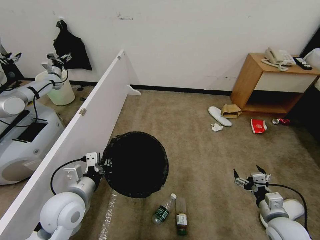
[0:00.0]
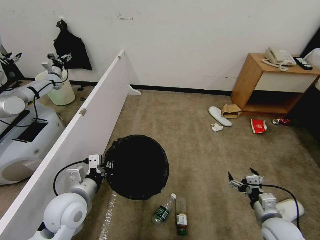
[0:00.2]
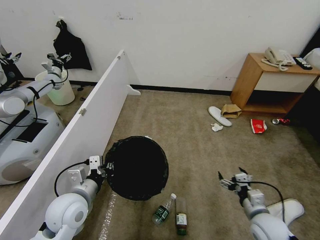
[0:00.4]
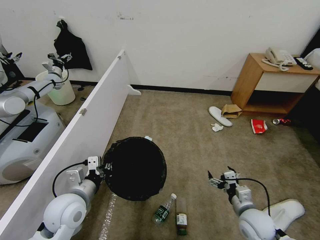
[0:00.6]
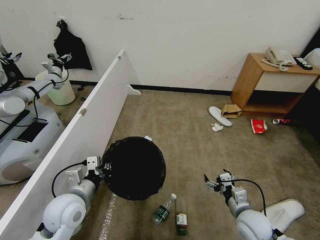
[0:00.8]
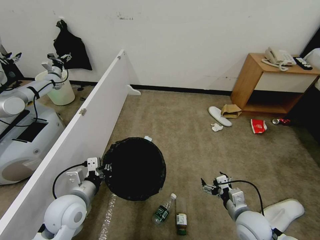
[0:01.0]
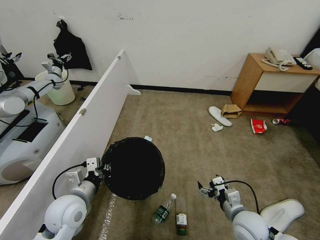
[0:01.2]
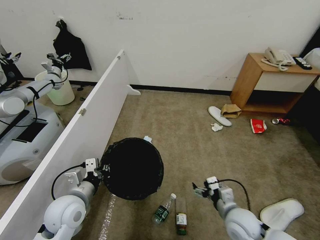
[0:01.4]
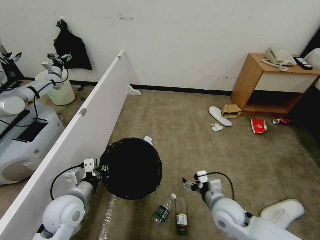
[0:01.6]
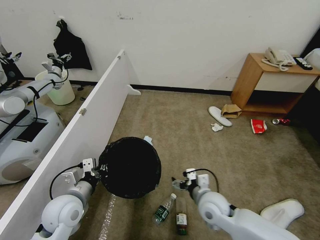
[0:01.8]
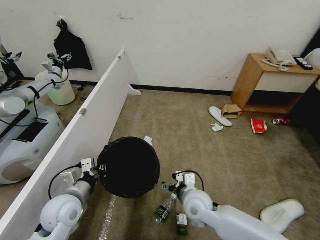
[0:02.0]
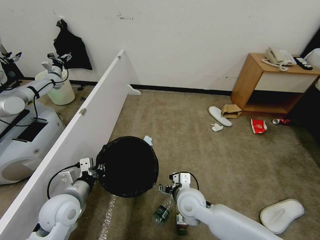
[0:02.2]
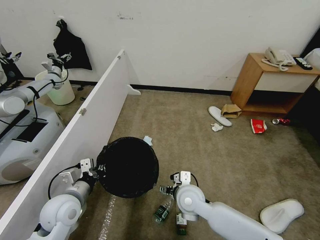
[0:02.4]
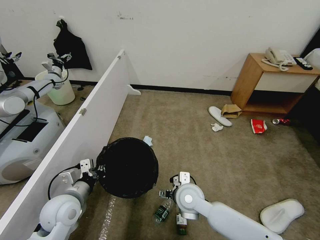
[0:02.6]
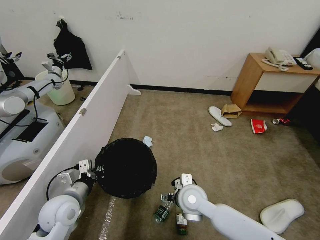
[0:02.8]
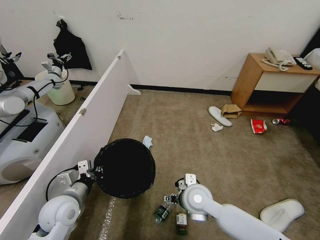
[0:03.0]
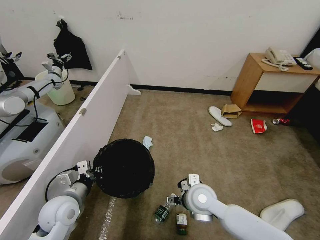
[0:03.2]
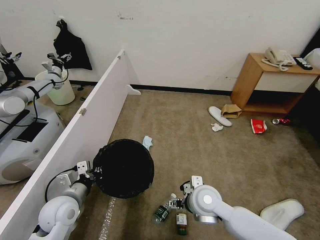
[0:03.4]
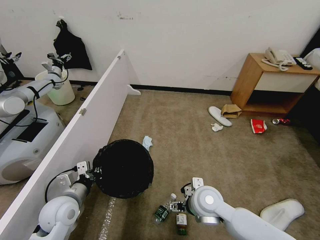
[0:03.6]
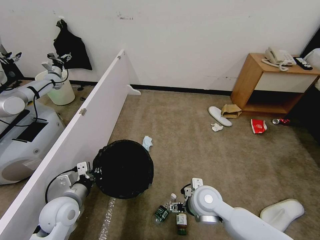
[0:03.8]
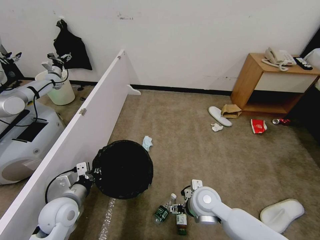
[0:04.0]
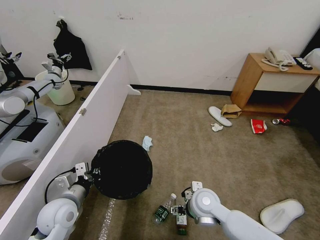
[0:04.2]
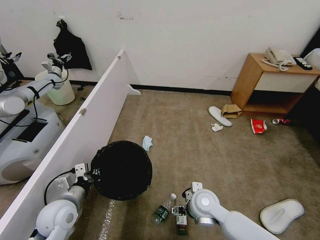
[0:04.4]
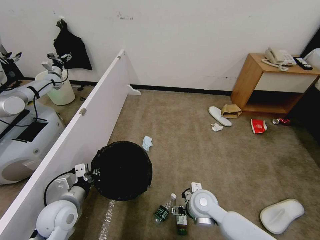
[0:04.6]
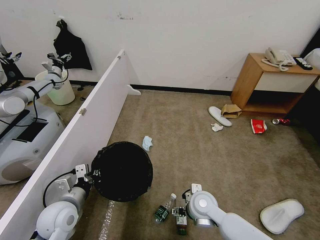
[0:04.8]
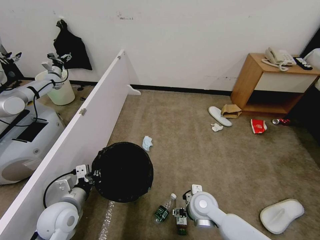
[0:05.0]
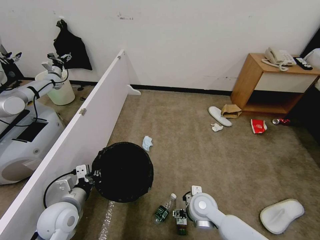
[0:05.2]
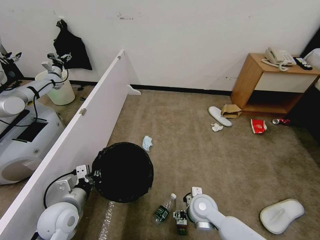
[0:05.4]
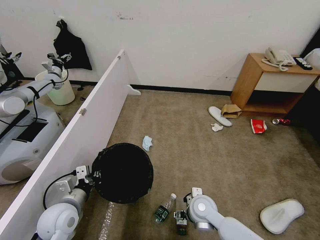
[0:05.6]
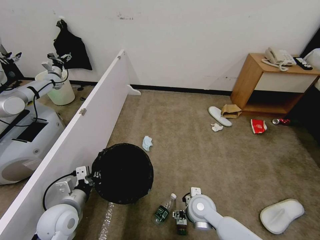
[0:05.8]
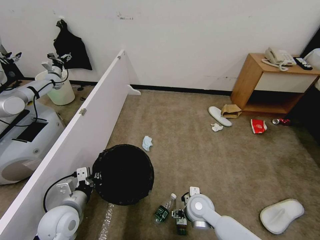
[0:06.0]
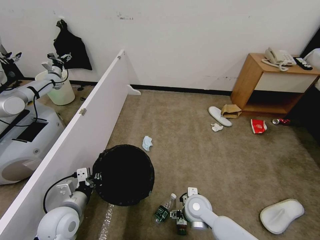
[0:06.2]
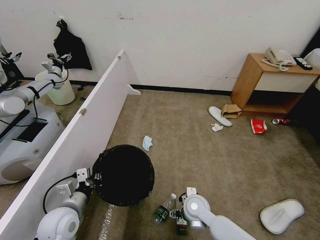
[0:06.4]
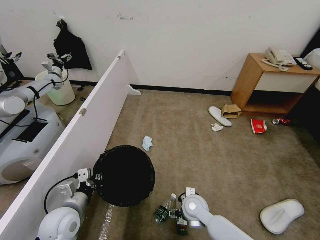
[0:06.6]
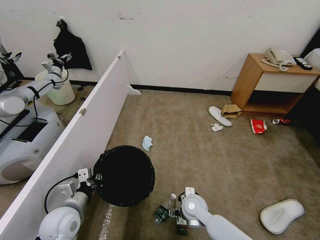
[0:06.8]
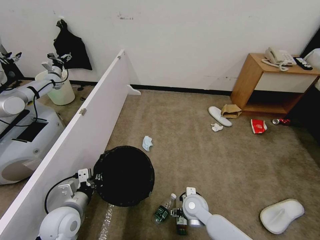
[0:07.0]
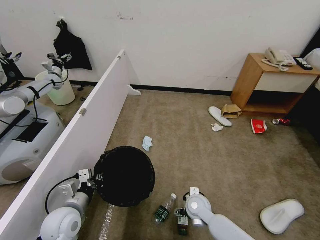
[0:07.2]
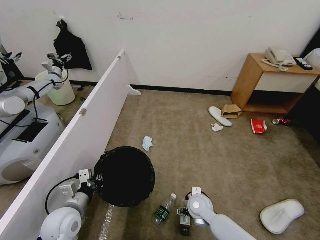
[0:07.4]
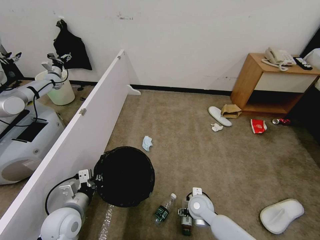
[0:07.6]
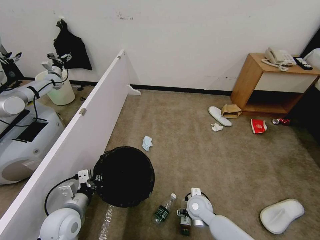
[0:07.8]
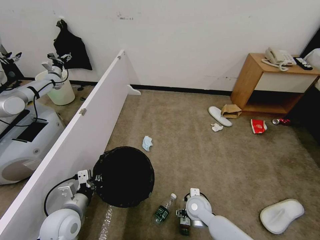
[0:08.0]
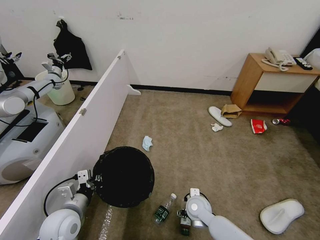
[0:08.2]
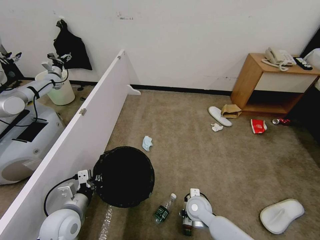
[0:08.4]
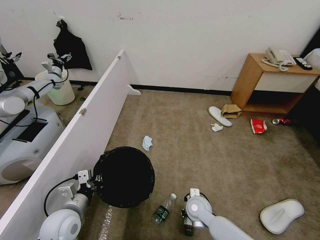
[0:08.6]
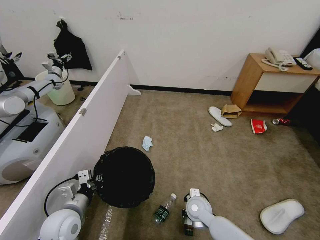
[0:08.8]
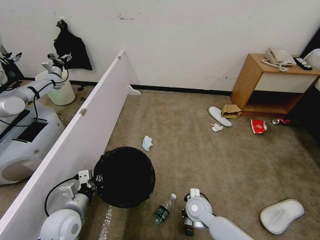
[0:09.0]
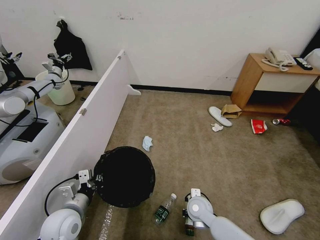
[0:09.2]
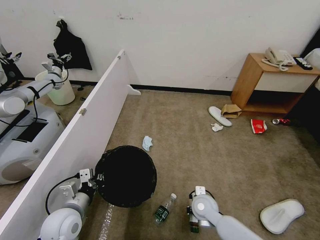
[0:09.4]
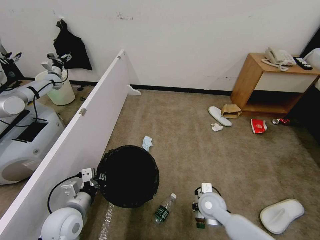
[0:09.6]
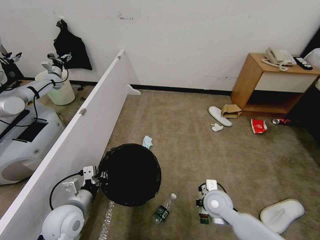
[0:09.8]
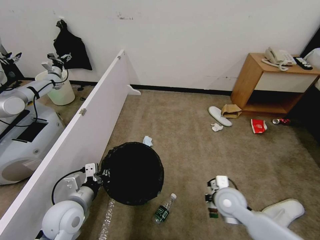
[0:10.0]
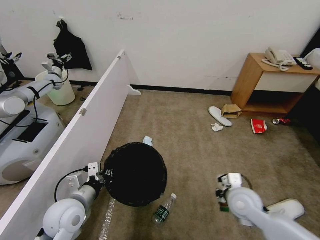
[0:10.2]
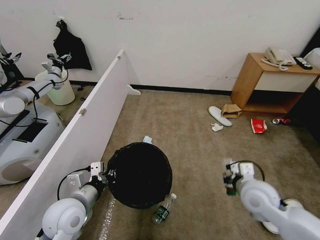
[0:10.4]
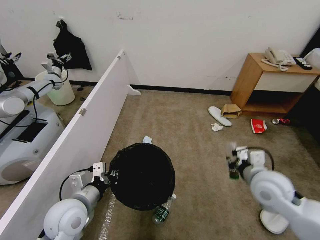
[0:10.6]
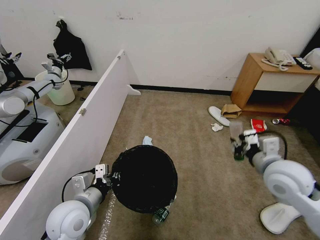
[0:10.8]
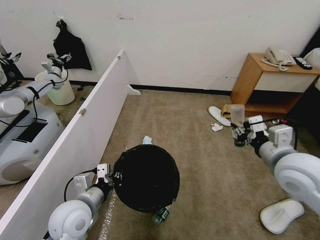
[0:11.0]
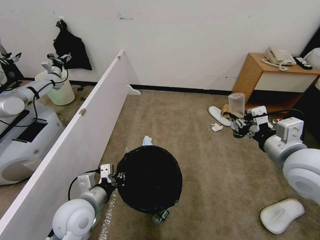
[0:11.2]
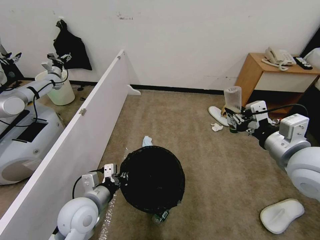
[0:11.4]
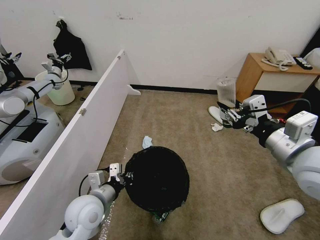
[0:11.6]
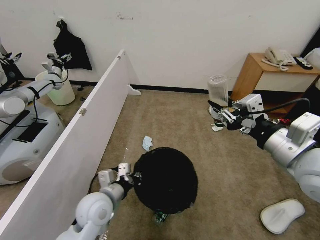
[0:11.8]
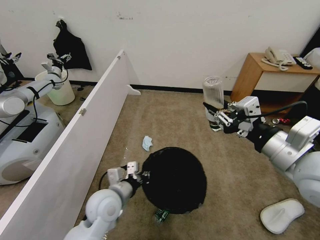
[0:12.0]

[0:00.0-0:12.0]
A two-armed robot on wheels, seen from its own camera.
Task of the whole recording: Pick up the trash bin, then pick up the garbage from the floor and place it into the trash bin.
0:00.0 to 0:01.6: The right gripper heads to the left, covering approximately 15 cm.
0:01.6 to 0:03.0: The right gripper travels to the left by roughly 10 cm.
0:03.0 to 0:04.4: The grippers make only small movements.
0:04.4 to 0:06.0: The grippers stay close to where they were, moving slightly.
0:06.0 to 0:07.6: The right gripper shifts some 5 cm downward.
0:07.6 to 0:09.0: The right gripper closes its fingers.
0:09.0 to 0:10.4: The left gripper shifts about 5 cm upward, while the right gripper is displaced upward and to the right by approximately 20 cm.
0:10.4 to 0:12.0: The right gripper is displaced upward by some 20 cm. The left gripper shifts approximately 10 cm to the right.

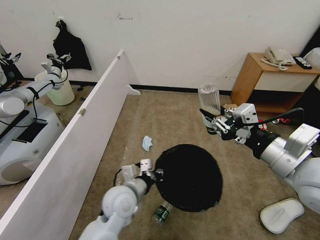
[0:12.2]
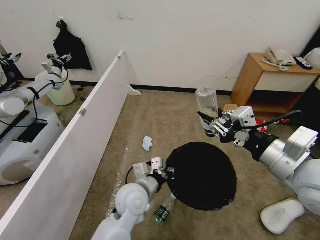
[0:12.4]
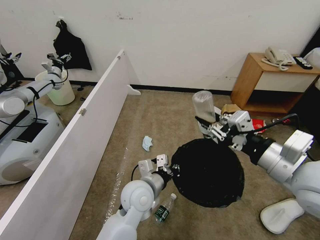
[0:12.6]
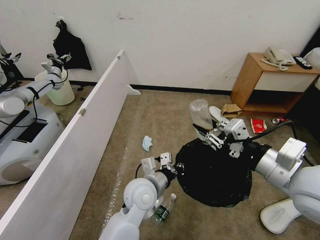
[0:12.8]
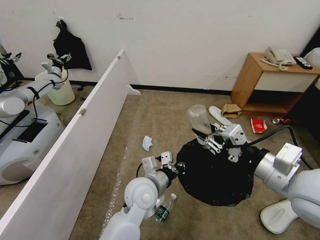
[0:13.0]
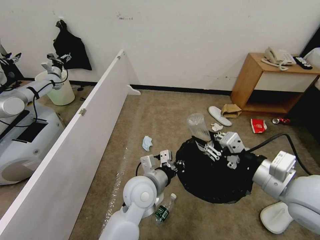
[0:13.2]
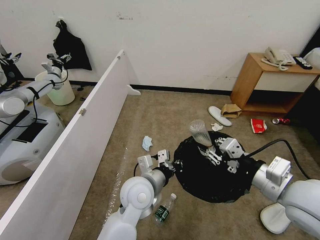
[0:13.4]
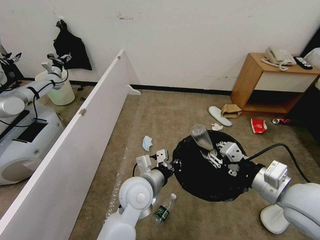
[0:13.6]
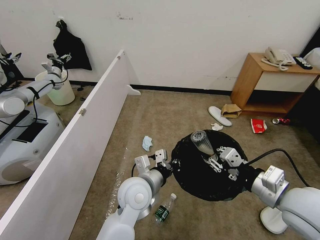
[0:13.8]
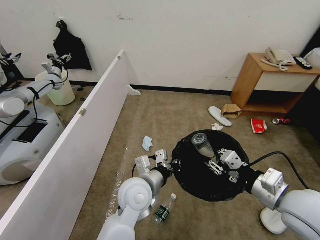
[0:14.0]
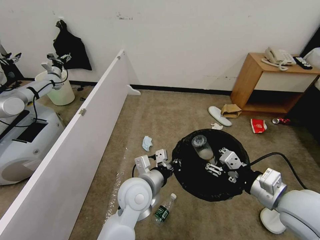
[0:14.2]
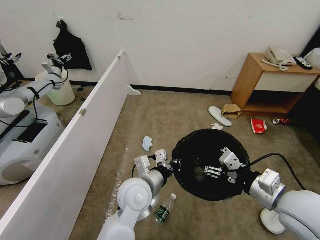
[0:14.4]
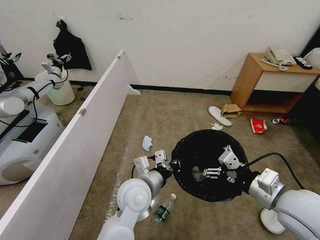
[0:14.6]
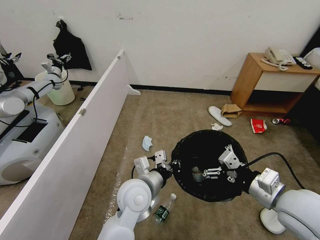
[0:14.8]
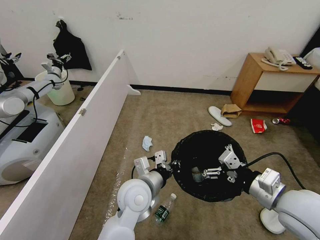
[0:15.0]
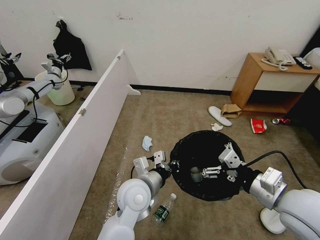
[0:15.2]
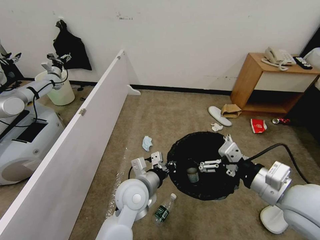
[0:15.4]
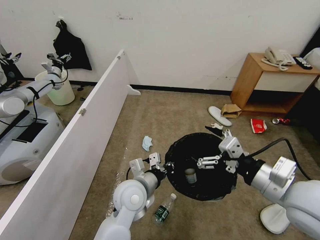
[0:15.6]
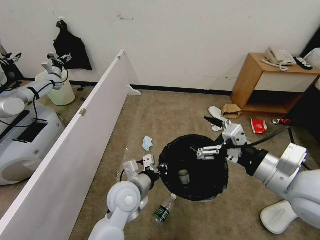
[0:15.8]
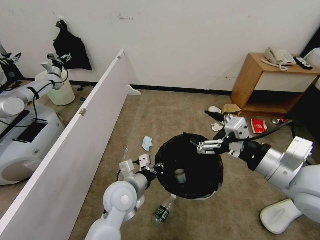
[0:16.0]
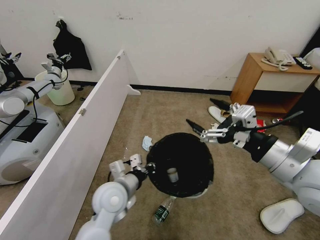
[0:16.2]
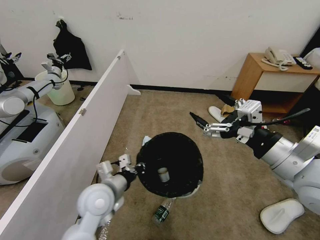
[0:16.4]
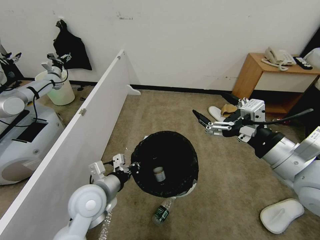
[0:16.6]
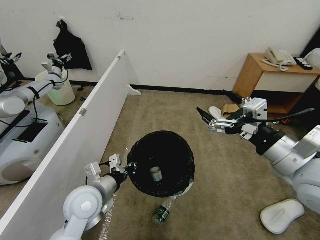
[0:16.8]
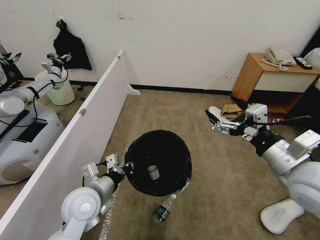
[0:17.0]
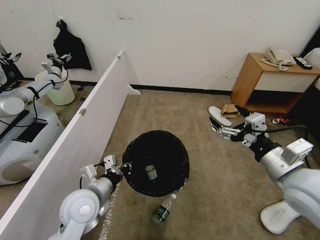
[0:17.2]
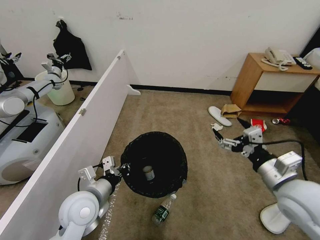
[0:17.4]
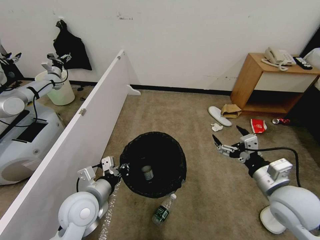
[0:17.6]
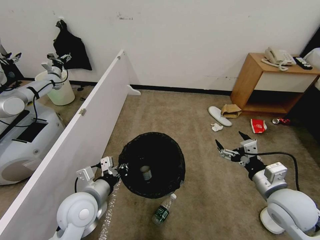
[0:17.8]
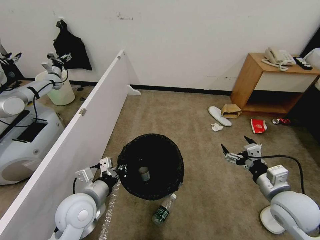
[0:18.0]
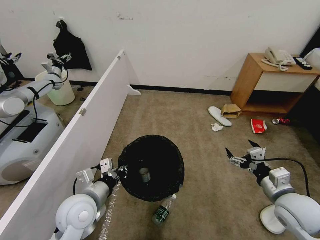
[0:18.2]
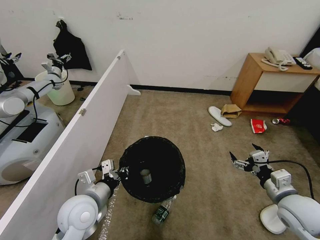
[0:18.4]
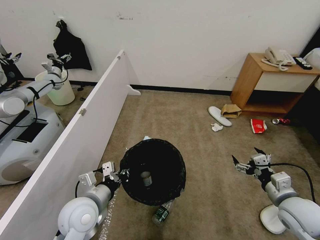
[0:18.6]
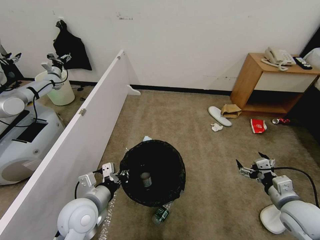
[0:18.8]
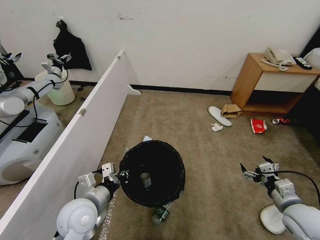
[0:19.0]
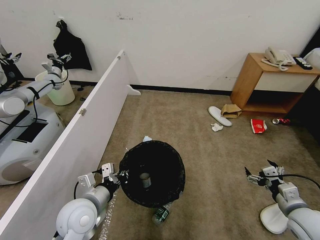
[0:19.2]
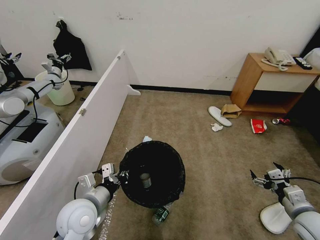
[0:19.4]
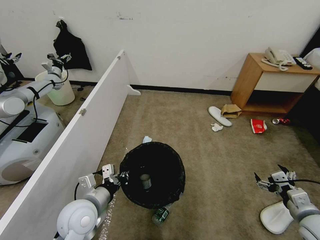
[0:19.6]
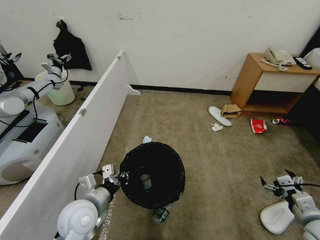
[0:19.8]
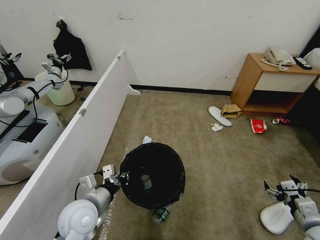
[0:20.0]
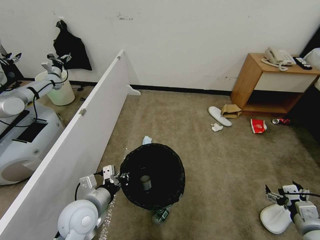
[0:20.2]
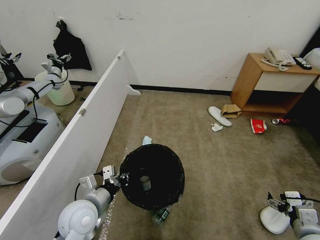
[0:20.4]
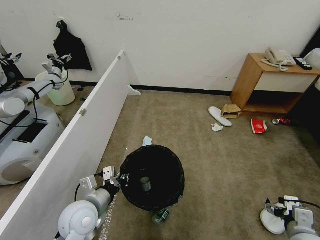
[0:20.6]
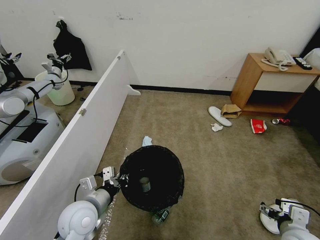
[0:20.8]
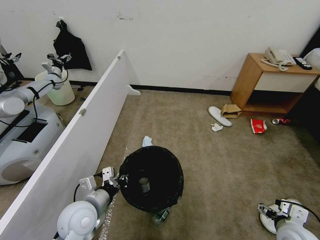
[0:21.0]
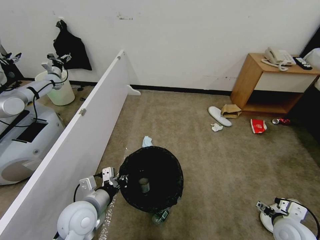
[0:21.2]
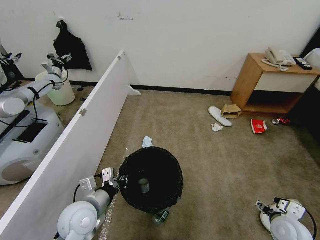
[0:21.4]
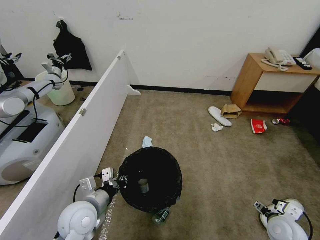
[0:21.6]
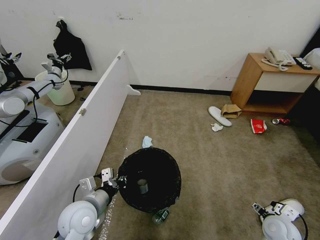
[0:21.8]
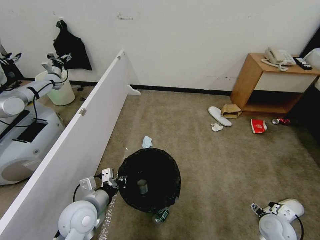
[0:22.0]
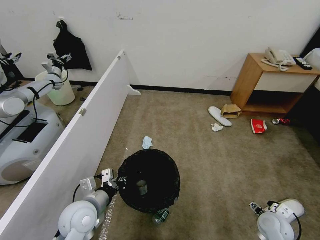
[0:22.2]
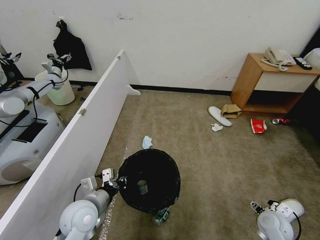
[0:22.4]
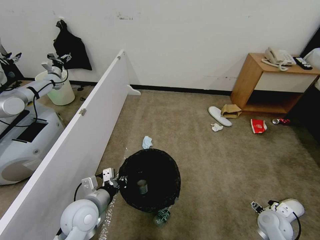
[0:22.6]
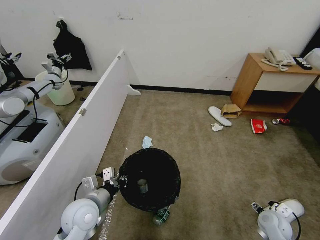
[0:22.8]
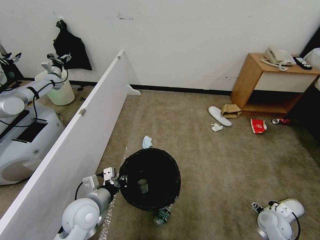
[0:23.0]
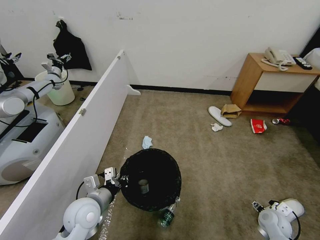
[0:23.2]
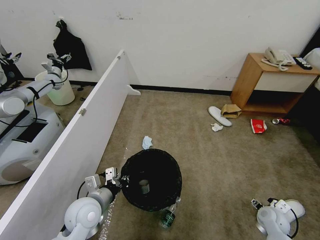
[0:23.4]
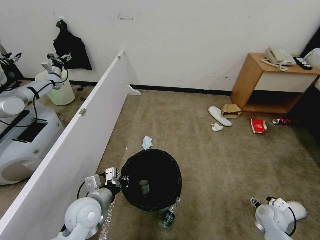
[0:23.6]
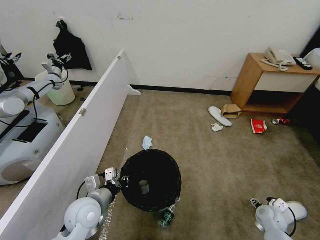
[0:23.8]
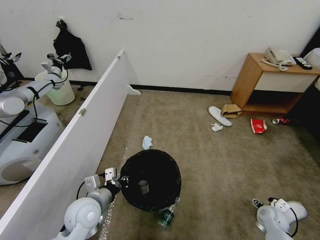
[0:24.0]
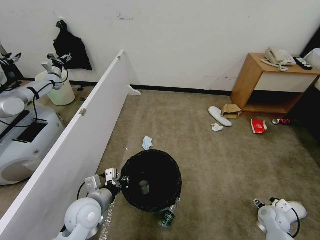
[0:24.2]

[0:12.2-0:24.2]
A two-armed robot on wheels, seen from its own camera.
Task of the whole recording: Pick up the trash bin, then pick up the garbage from the floor and place it into the trash bin.
0:12.2 to 0:13.8: The left gripper shifts approximately 5 cm to the right, while the right gripper travels downward by about 10 cm.
0:13.8 to 0:15.2: The right gripper opens its fingers.
0:15.2 to 0:16.6: The left gripper goes about 10 cm to the left. The right gripper is displaced upward by about 10 cm.
0:16.6 to 0:18.2: The right gripper is displaced downward and to the right by roughly 20 cm.
0:18.2 to 0:19.8: The right gripper travels to the right, backward and downward by roughly 10 cm.
0:19.8 to 0:21.2: The right gripper is displaced to the left by some 5 cm.
0:21.2 to 0:22.6: The right gripper travels downward by some 10 cm.
0:22.6 to 0:24.2: The right gripper moves about 5 cm.
